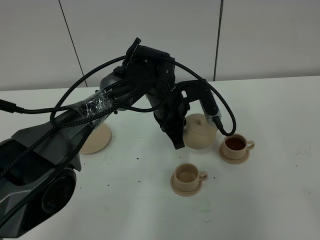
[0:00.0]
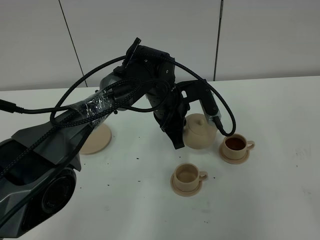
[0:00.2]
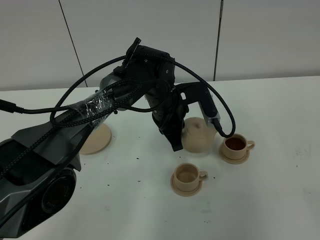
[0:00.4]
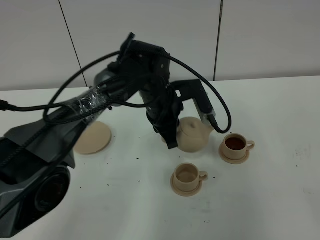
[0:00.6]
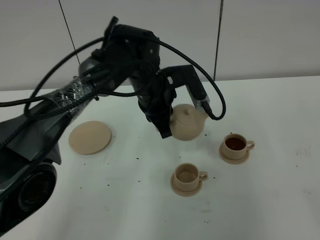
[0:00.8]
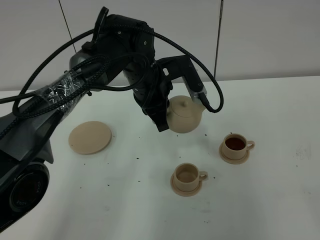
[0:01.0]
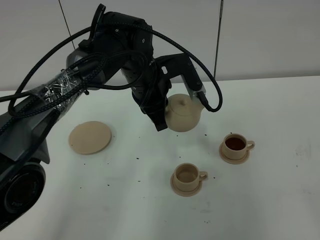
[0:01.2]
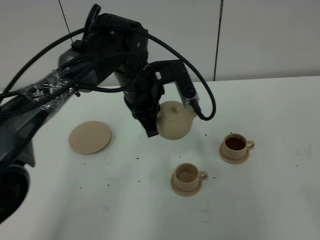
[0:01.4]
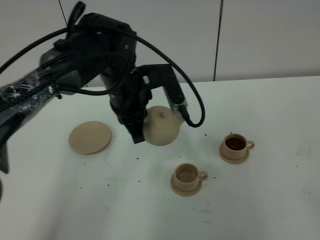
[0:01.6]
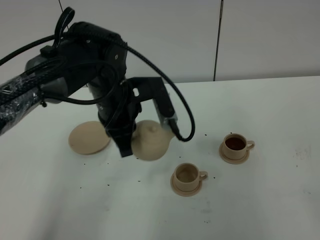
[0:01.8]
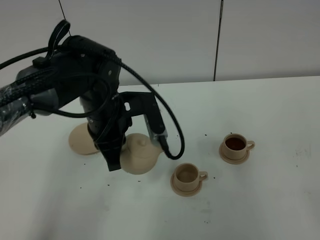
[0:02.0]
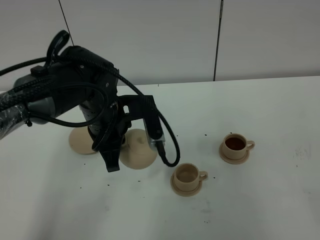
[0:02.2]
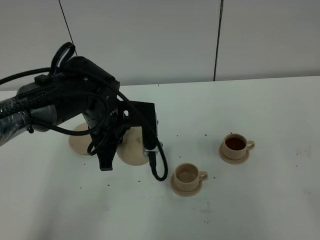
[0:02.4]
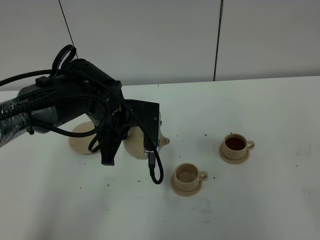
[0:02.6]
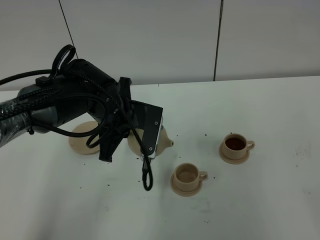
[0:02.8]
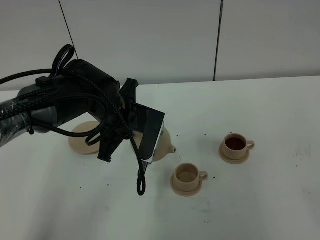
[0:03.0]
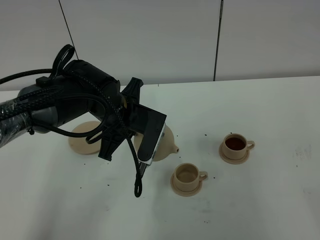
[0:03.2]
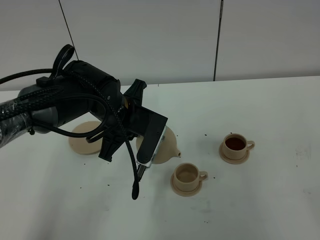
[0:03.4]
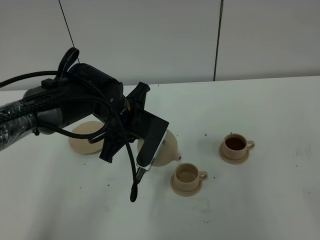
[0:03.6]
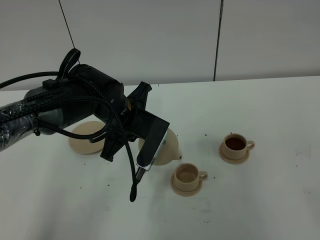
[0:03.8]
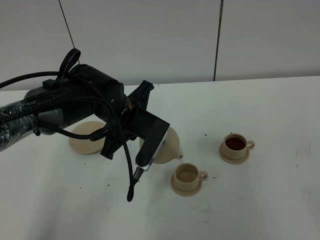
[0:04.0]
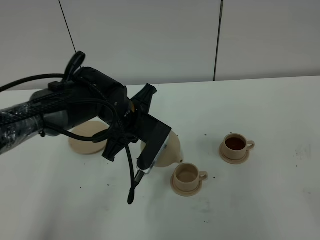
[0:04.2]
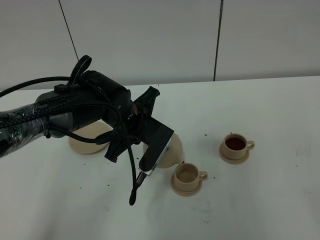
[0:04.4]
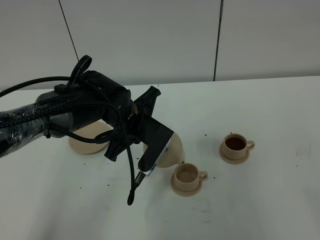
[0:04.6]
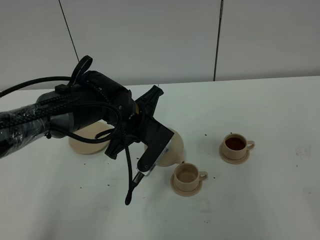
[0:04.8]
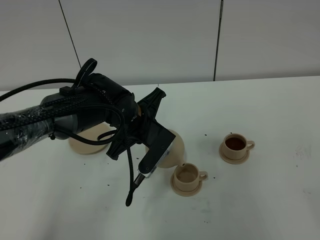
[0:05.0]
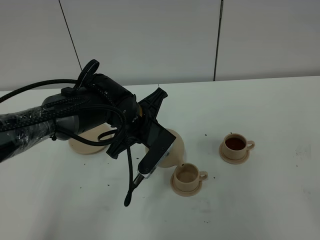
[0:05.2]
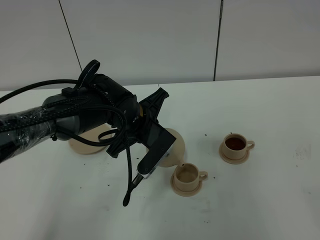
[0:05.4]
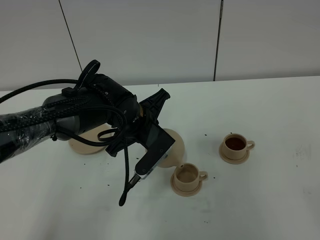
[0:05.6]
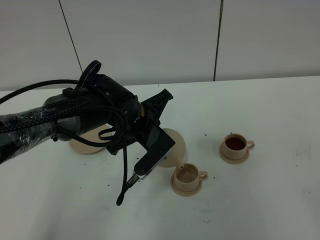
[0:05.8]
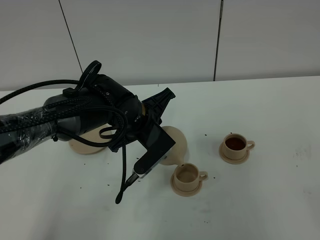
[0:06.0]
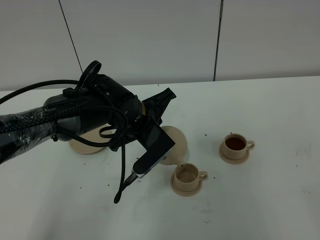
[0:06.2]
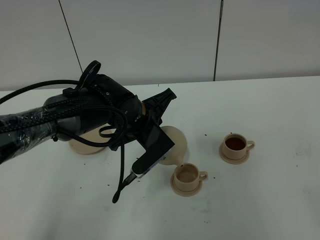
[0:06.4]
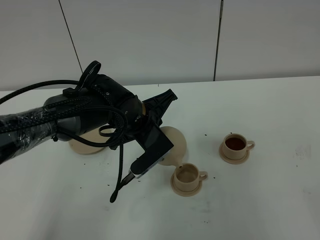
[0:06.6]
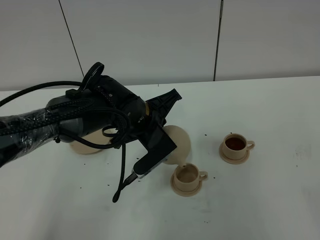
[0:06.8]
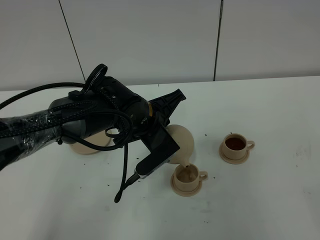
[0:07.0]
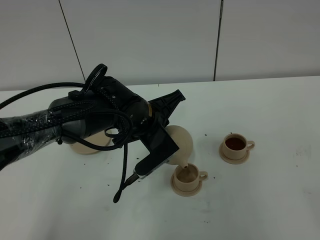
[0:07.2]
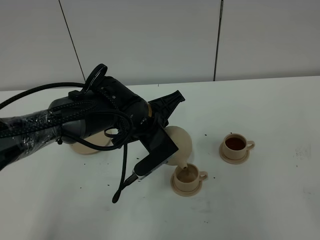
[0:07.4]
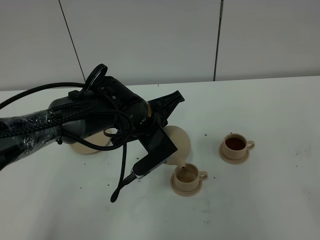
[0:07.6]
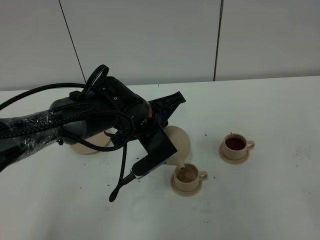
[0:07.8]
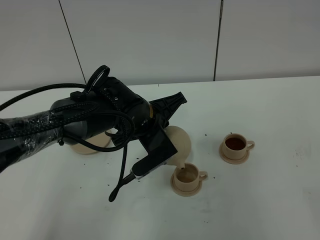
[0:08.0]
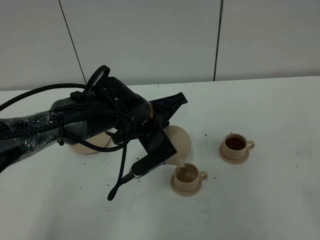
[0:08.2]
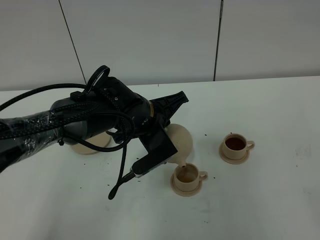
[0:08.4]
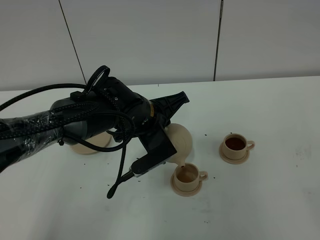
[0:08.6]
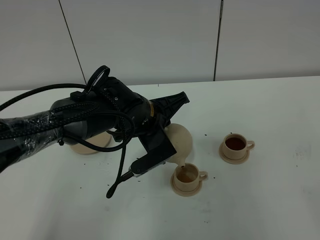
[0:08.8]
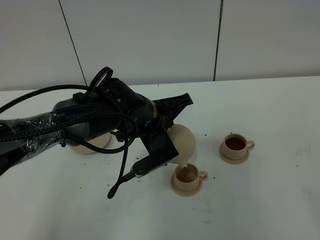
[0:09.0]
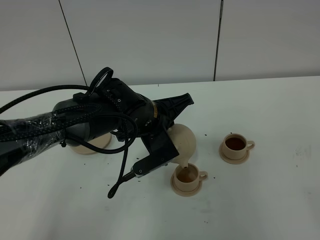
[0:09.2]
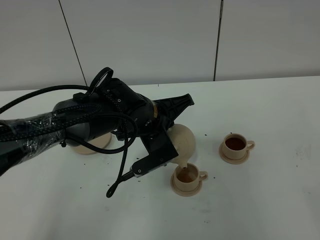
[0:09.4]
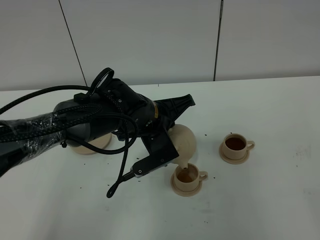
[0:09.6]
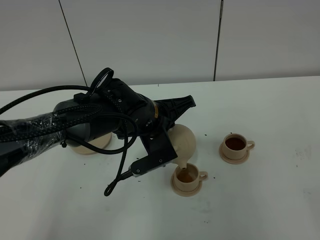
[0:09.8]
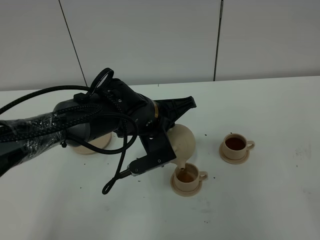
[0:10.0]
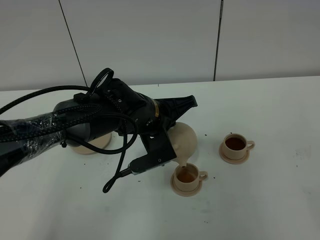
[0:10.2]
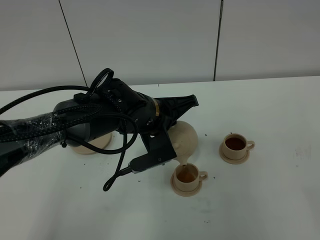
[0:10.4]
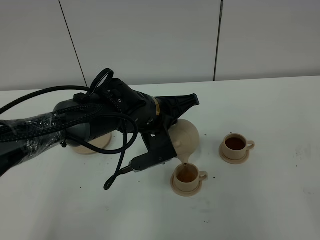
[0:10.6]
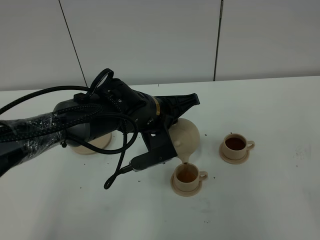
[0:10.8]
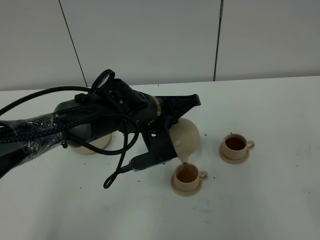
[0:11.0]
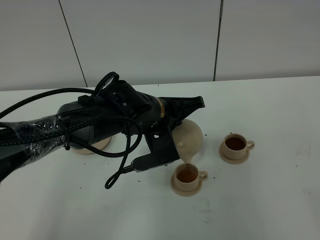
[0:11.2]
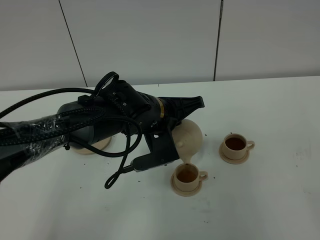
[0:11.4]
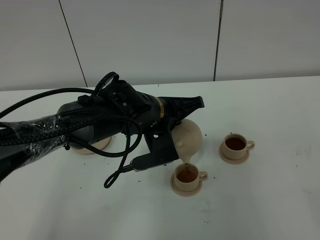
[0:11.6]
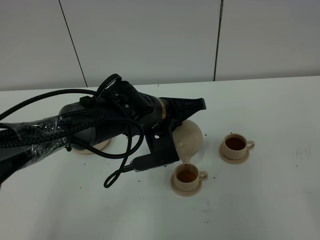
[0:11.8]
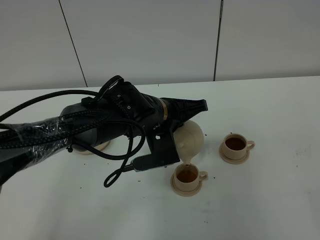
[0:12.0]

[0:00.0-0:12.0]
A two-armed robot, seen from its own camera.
Task of the whole recording: grasp the brown teapot and pour the tea into the two brown teacups one by one, put the brown teapot back in its original place.
0:00.0 to 0:01.6: The left gripper heads upward and to the left, covering approximately 10 cm.
0:03.0 to 0:04.4: There are only small adjustments of the grippers.
0:04.4 to 0:06.0: The grippers stay close to where they were, moving slightly.
0:06.0 to 0:09.0: The grippers make only small movements.
0:09.0 to 0:12.0: The grippers move only a little.

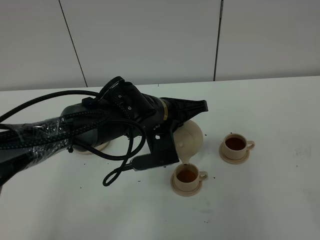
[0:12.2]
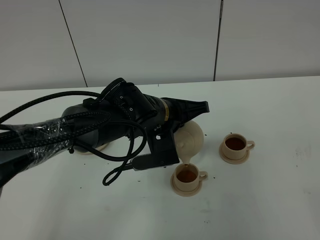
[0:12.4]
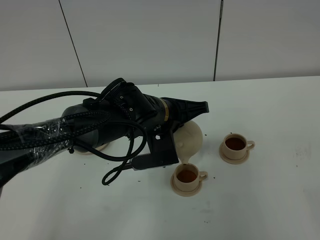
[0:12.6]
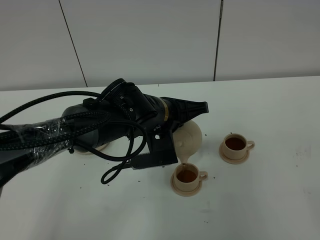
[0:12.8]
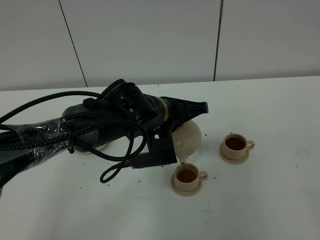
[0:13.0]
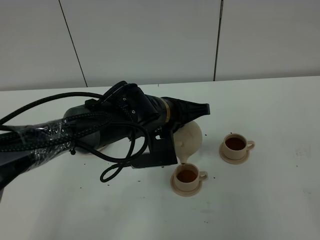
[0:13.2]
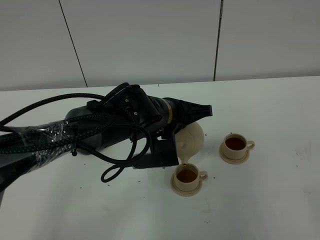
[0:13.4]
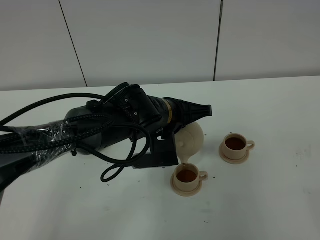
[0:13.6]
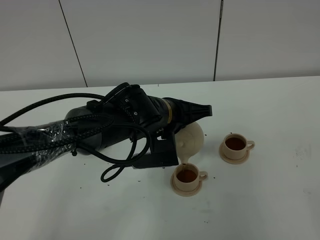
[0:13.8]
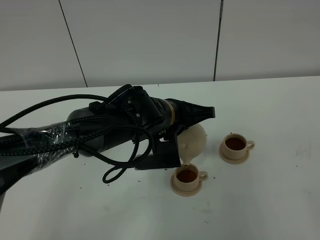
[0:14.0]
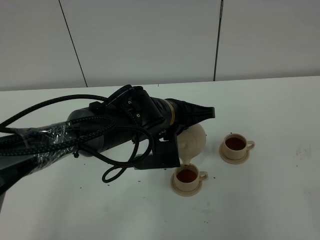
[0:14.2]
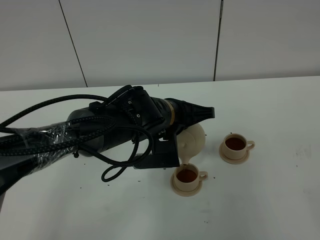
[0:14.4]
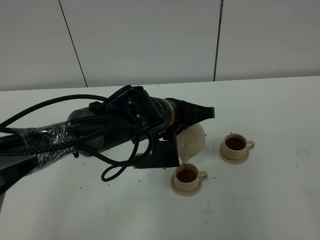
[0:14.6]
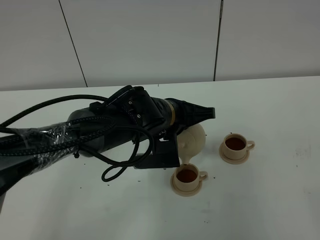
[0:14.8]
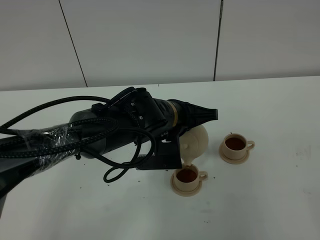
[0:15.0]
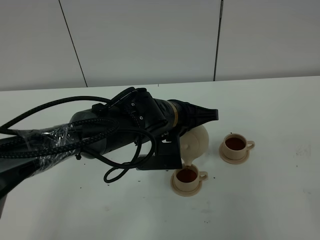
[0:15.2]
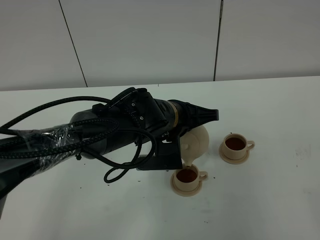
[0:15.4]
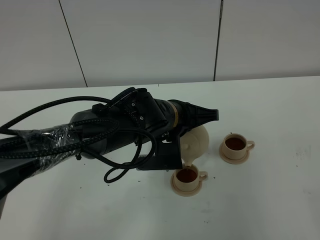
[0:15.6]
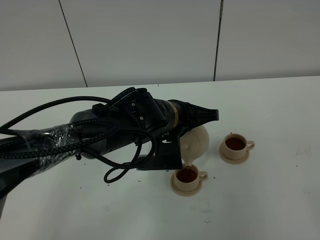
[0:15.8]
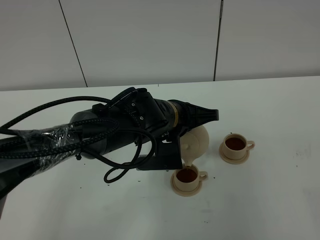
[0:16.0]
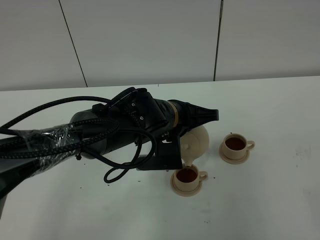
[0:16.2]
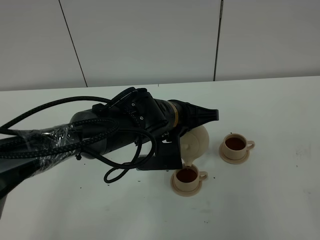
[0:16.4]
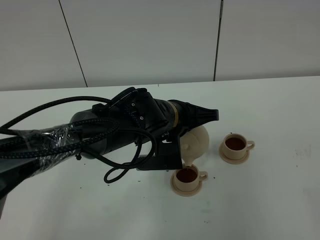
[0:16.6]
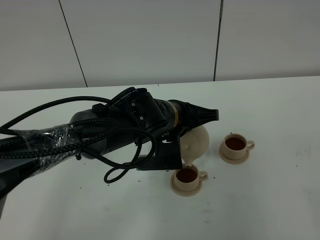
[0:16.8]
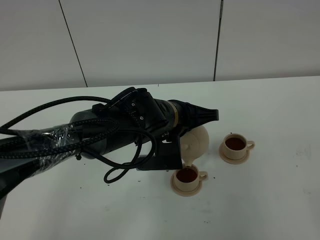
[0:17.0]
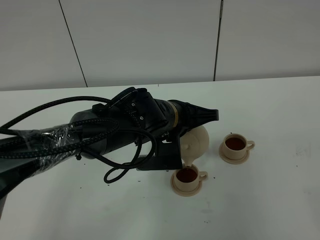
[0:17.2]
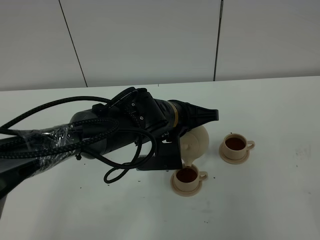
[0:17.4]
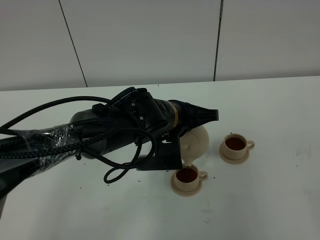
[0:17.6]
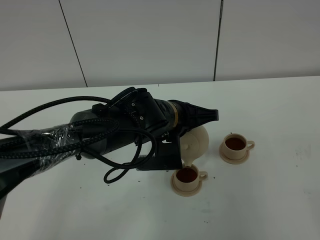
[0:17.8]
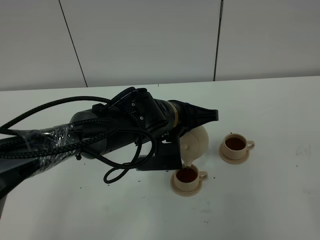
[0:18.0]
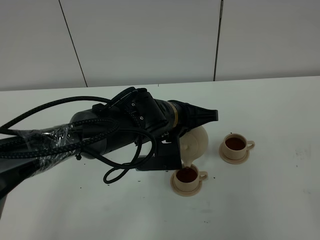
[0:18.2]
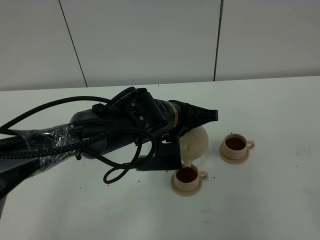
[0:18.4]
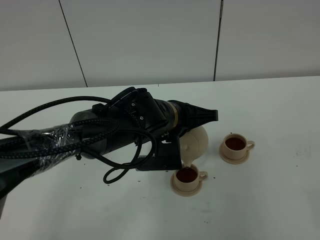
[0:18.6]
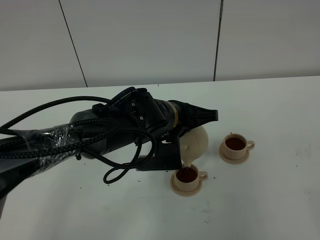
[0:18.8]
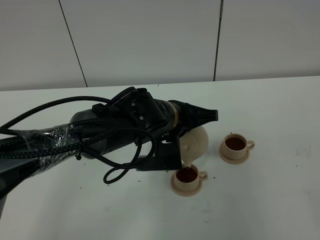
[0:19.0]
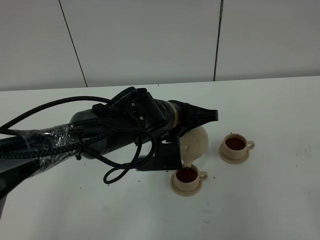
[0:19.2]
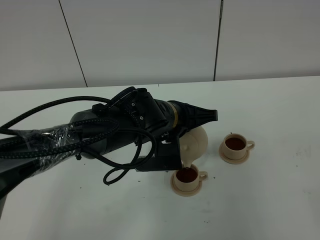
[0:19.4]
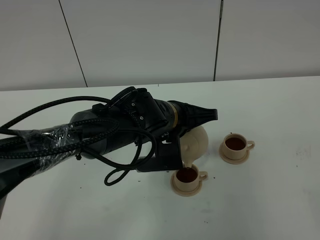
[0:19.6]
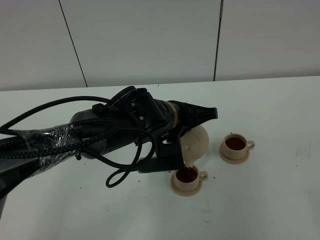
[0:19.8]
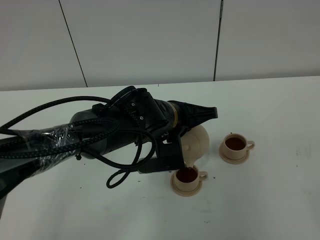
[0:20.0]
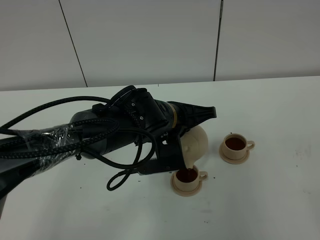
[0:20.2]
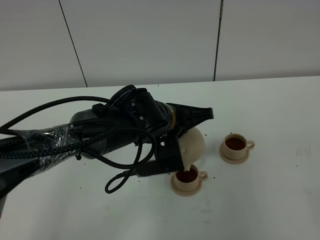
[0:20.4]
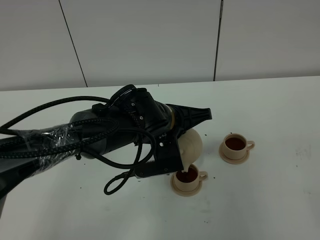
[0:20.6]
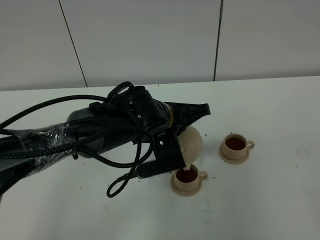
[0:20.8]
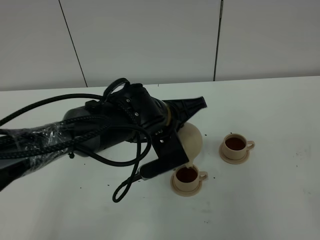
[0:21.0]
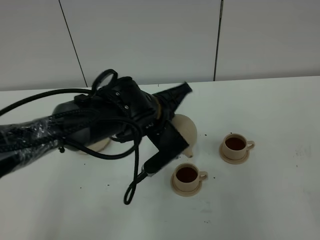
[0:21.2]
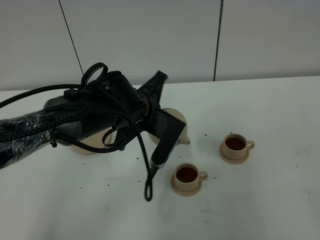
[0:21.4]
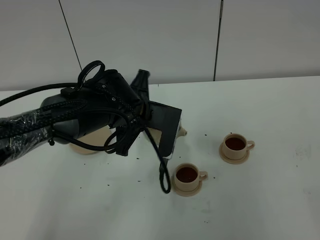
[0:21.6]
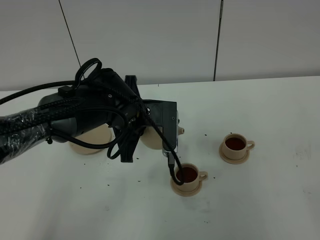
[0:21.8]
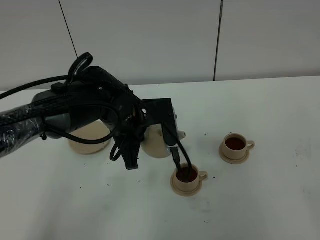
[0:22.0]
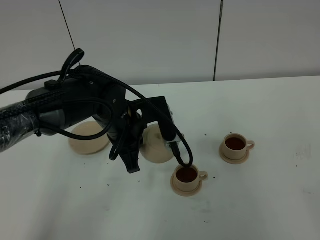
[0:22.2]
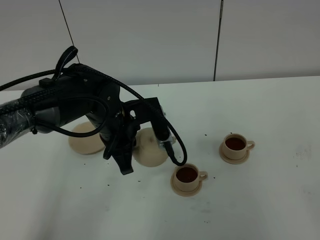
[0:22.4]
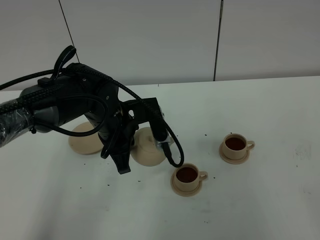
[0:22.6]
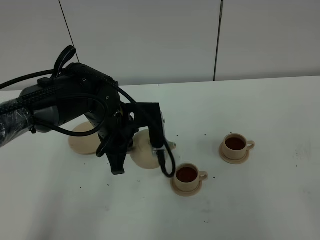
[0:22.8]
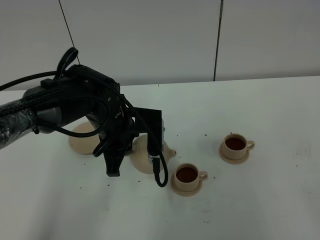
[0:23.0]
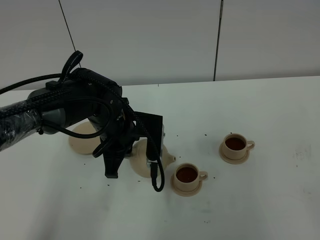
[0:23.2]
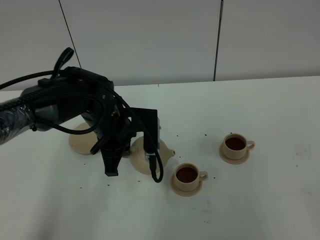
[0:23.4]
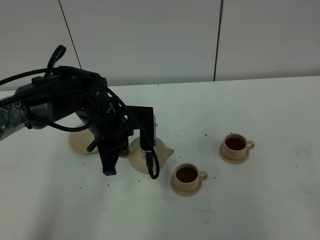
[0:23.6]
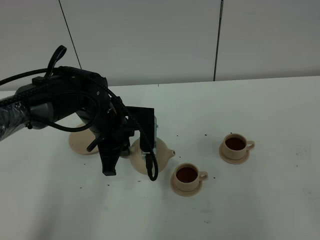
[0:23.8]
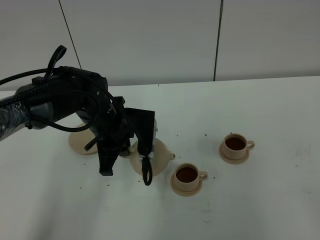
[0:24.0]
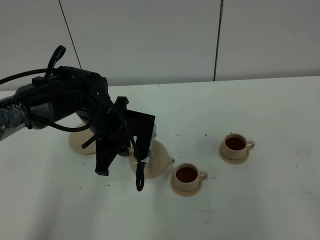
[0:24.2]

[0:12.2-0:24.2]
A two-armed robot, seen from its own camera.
Task of the whole recording: grasp the brown teapot and pour the tea into the two brown teacups one by one, put the brown teapot back in its original place.
Step, 0:12.2 to 0:20.4: Pour tea into the teacup with the left gripper.
0:12.2 to 0:13.8: The grippers move only a little.
0:13.8 to 0:19.8: Both grippers stay put.
0:21.2 to 0:22.6: The left gripper travels to the left by some 5 cm.
